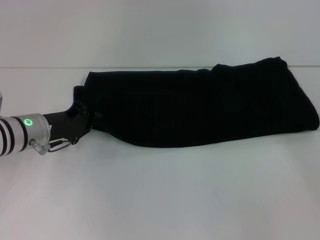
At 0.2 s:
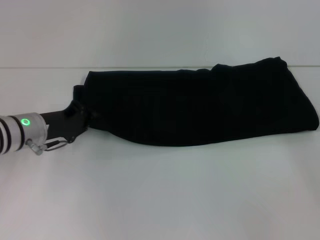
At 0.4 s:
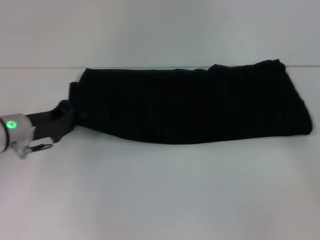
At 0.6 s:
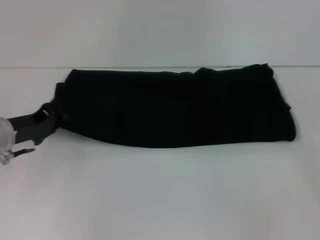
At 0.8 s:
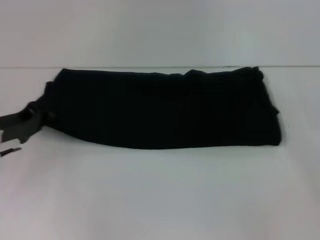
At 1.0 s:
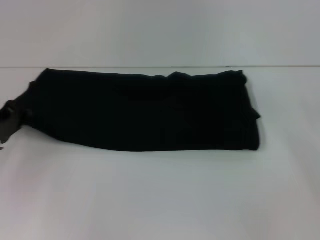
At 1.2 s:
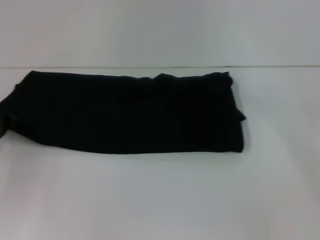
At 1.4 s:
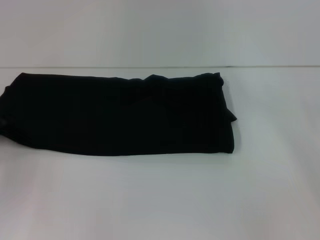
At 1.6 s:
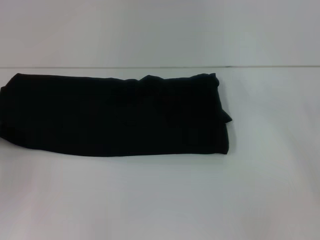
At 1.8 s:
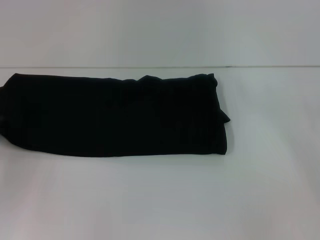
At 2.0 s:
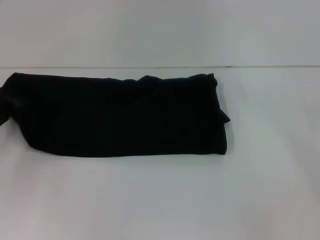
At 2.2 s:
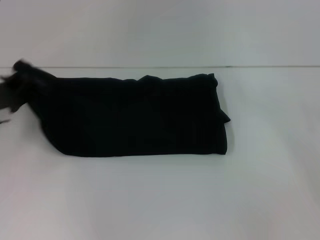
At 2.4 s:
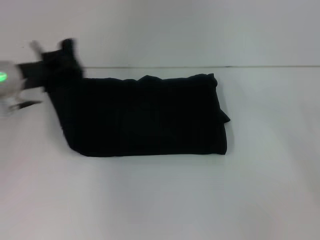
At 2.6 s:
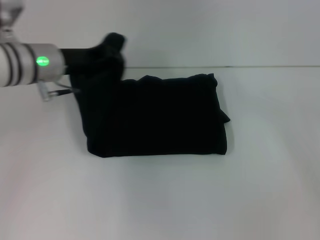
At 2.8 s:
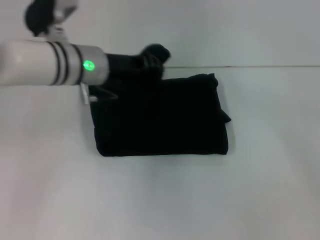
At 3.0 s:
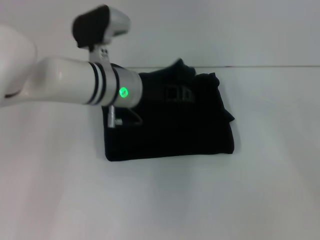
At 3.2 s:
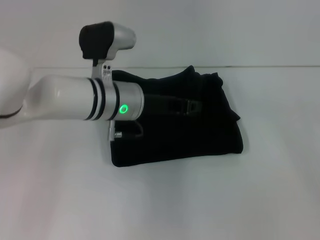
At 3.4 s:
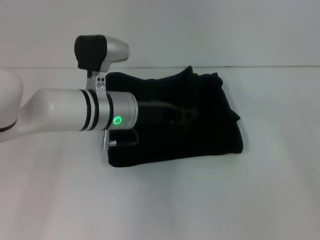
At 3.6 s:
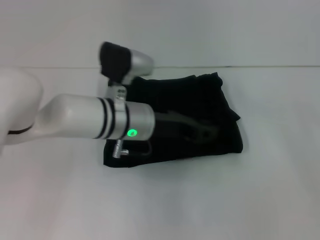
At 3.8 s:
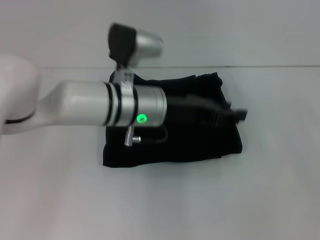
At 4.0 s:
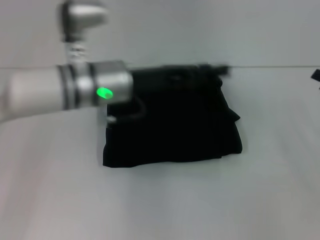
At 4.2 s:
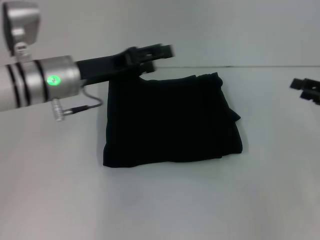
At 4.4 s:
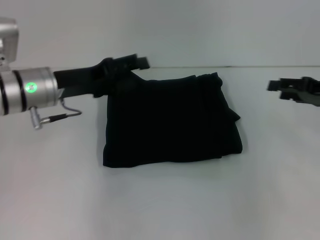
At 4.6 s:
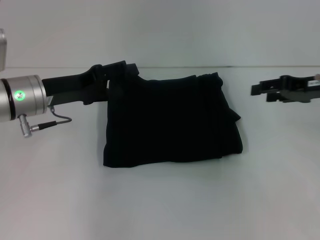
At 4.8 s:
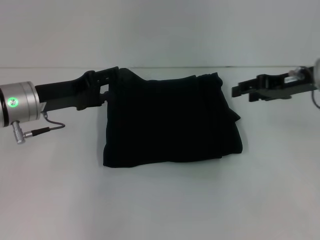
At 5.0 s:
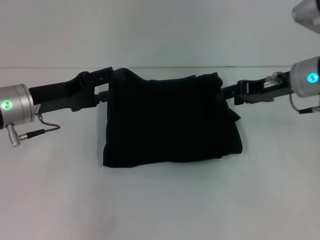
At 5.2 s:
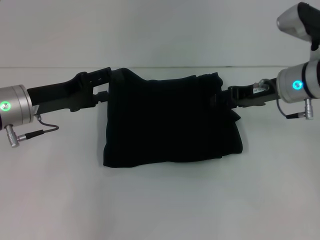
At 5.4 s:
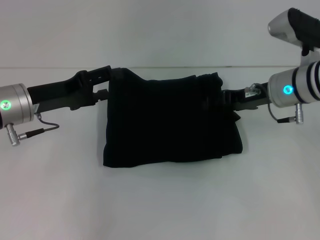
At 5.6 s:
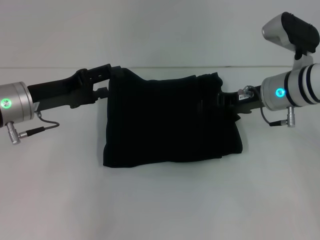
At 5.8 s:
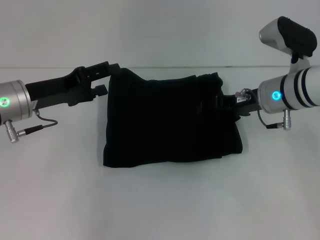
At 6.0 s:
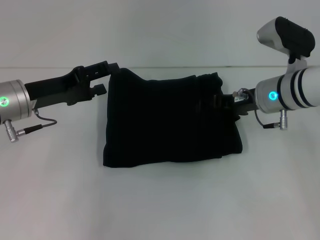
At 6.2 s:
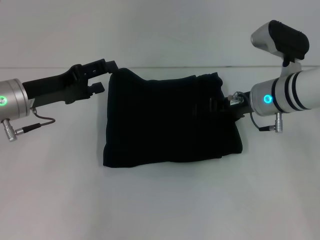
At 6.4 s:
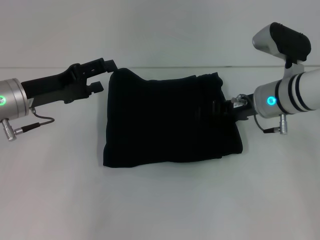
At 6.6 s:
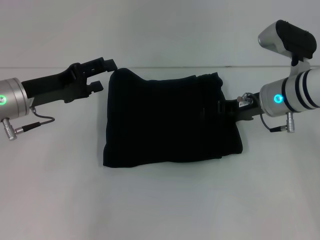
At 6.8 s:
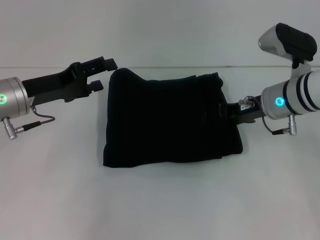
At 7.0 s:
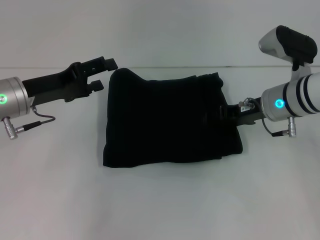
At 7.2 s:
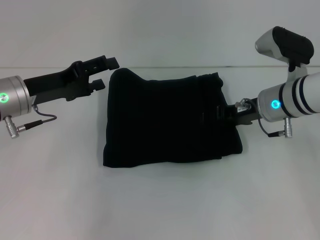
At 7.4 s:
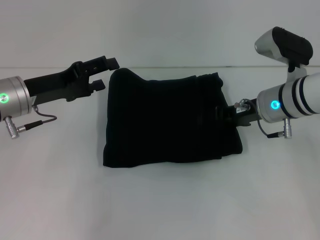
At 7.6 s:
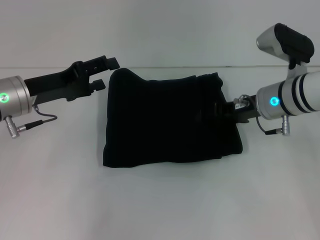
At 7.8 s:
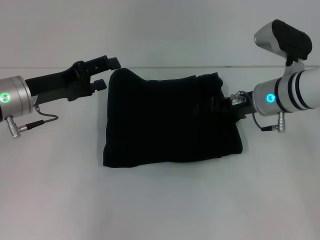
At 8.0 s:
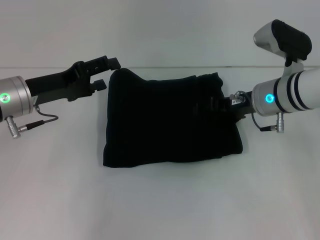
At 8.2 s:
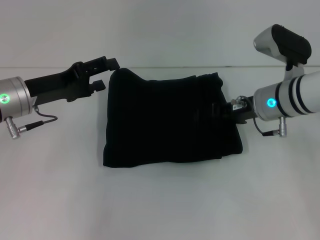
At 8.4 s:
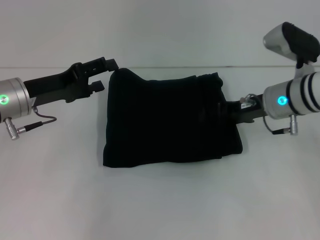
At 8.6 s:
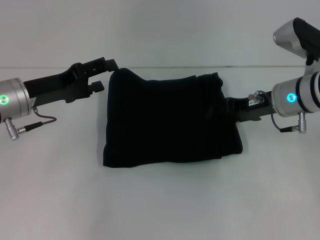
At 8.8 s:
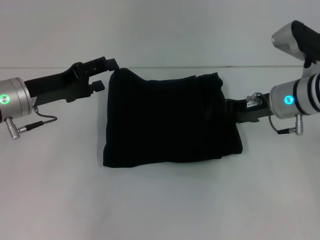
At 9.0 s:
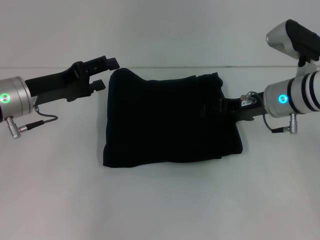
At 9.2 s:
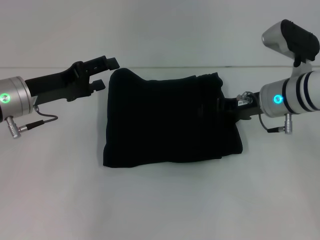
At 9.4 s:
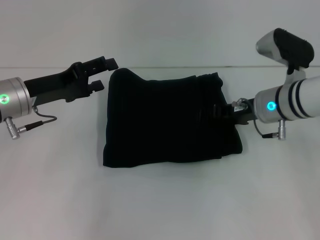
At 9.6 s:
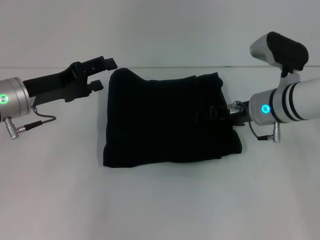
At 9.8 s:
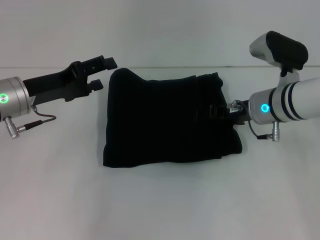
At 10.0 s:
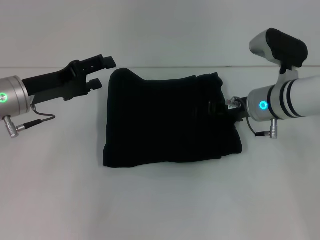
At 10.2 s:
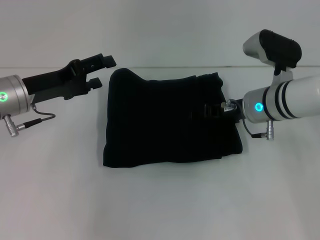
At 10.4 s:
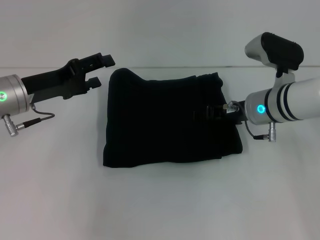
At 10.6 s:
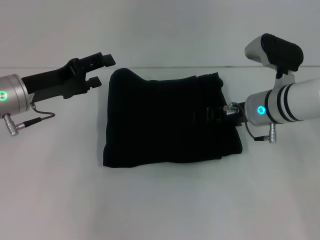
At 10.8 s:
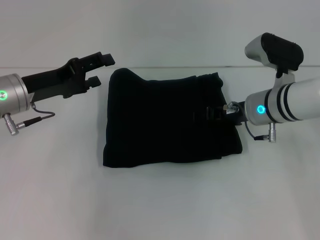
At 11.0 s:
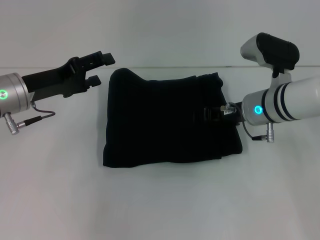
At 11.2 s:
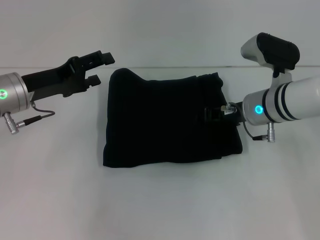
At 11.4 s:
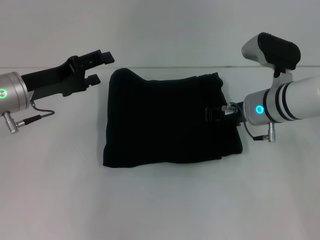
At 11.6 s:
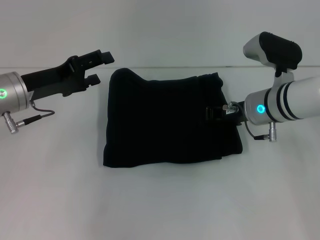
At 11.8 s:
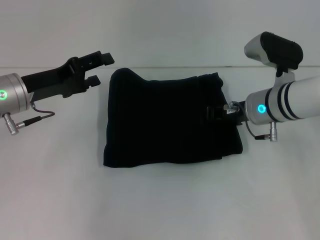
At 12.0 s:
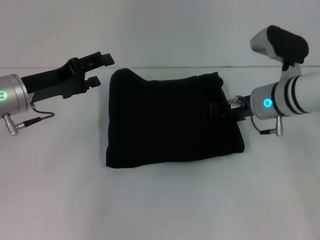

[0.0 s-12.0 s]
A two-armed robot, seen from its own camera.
Step, 0.0 to 4.0 s: Fold the clothes with your left hand.
0.0 to 1.6 s: The left gripper moves to the left and backward, approximately 15 cm.
1.6 to 3.0 s: The left gripper heads to the right, covering approximately 30 cm.
3.0 to 4.4 s: The right gripper is displaced forward and to the left by some 10 cm. The left gripper goes about 10 cm to the left, and opens up.
4.4 to 6.0 s: The right gripper moves to the left, some 15 cm.
6.0 to 7.6 s: Neither gripper changes place.
7.6 to 10.4 s: There are only small adjustments of the grippers.
10.4 to 12.0 s: The right gripper closes its fingers.

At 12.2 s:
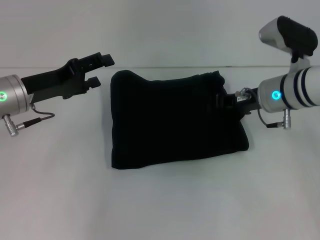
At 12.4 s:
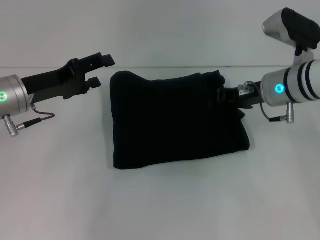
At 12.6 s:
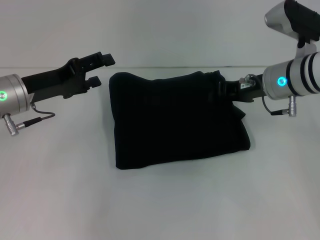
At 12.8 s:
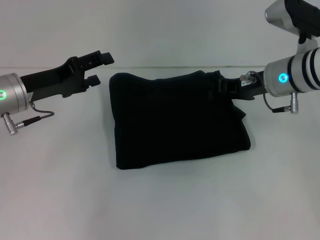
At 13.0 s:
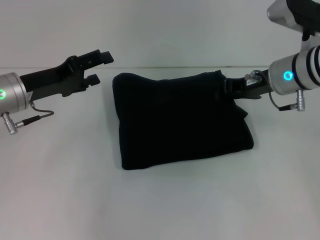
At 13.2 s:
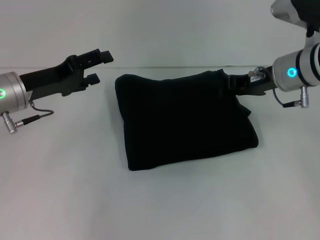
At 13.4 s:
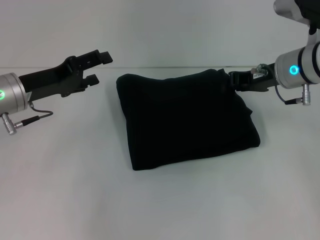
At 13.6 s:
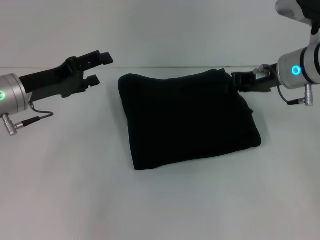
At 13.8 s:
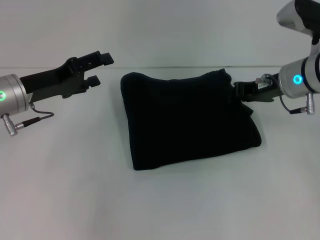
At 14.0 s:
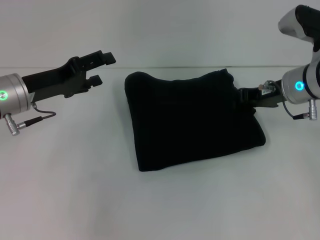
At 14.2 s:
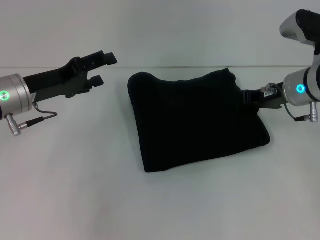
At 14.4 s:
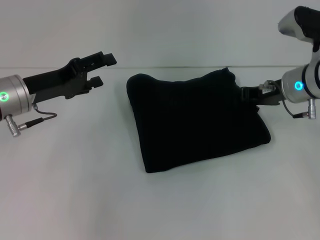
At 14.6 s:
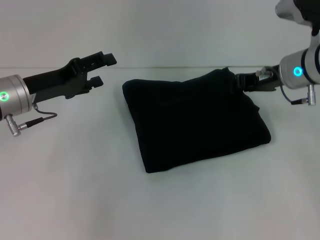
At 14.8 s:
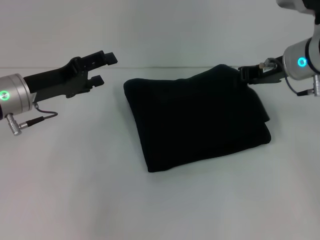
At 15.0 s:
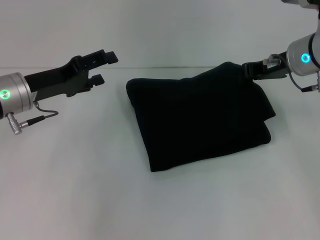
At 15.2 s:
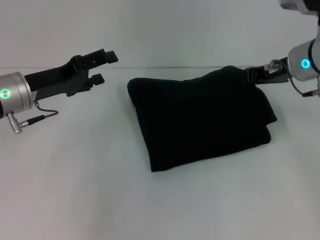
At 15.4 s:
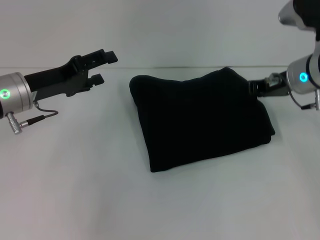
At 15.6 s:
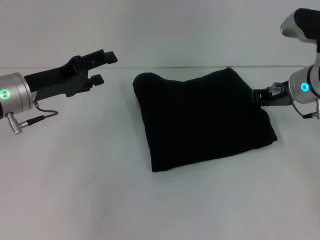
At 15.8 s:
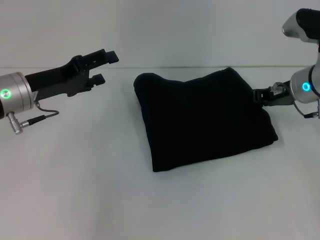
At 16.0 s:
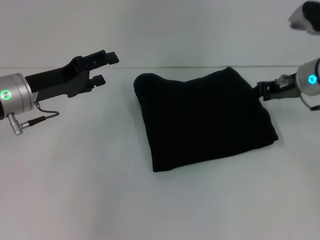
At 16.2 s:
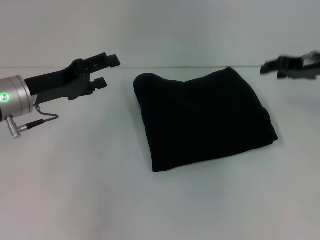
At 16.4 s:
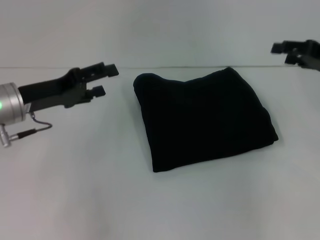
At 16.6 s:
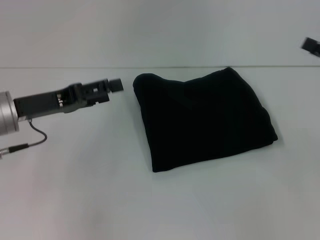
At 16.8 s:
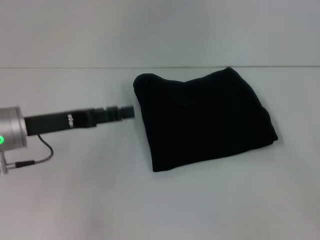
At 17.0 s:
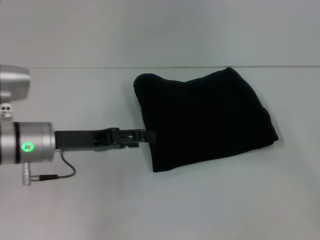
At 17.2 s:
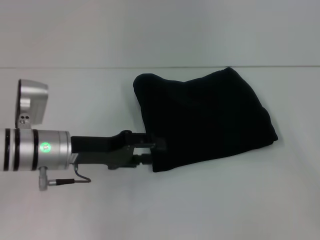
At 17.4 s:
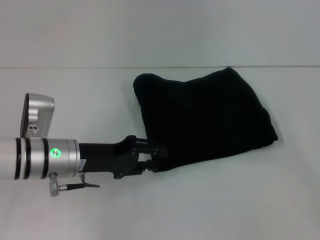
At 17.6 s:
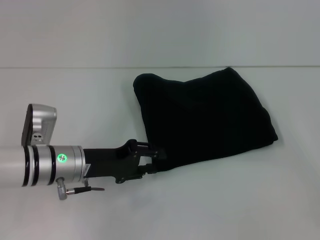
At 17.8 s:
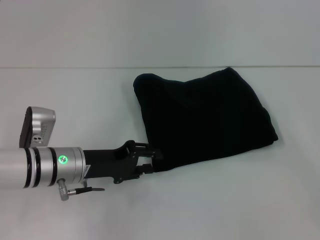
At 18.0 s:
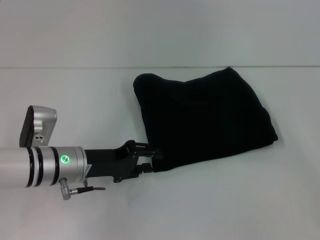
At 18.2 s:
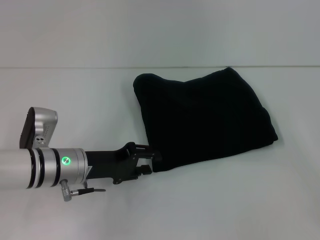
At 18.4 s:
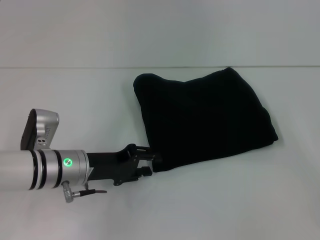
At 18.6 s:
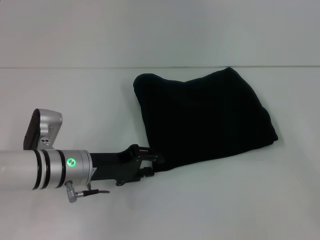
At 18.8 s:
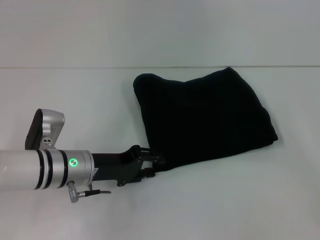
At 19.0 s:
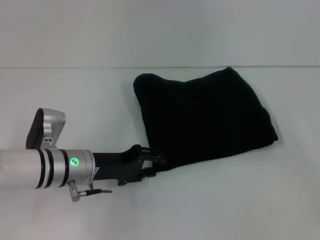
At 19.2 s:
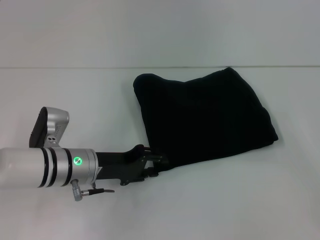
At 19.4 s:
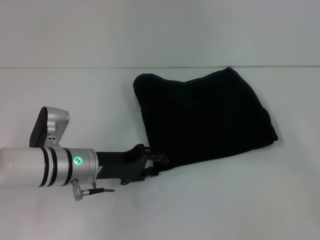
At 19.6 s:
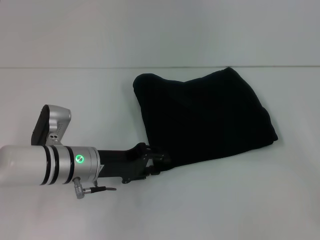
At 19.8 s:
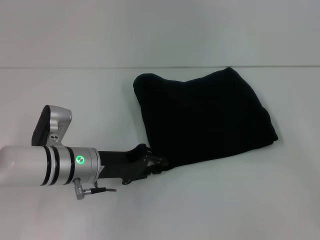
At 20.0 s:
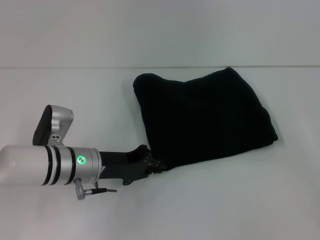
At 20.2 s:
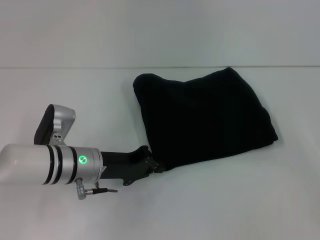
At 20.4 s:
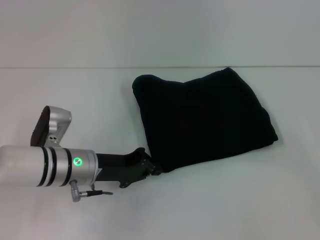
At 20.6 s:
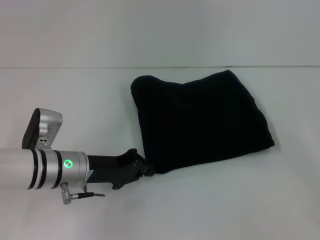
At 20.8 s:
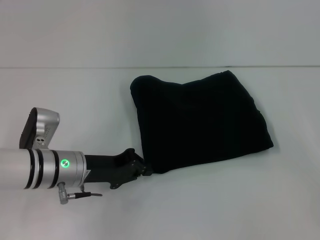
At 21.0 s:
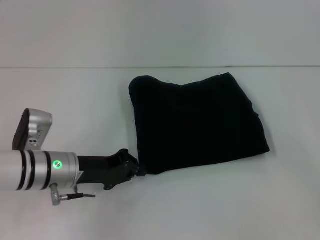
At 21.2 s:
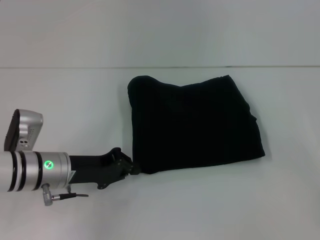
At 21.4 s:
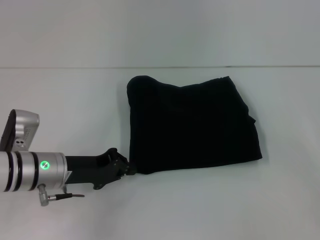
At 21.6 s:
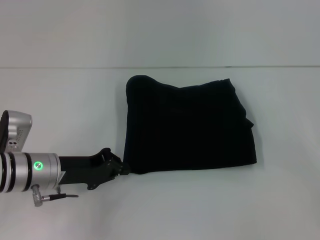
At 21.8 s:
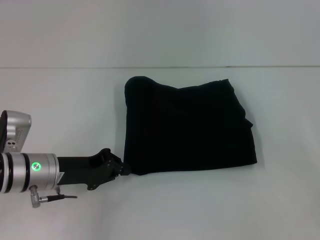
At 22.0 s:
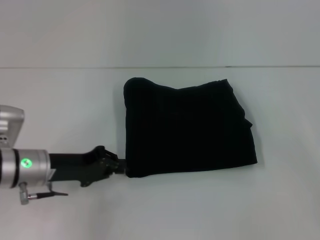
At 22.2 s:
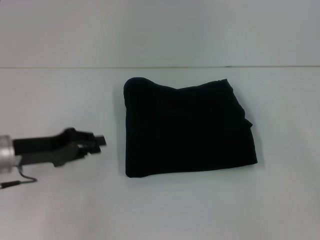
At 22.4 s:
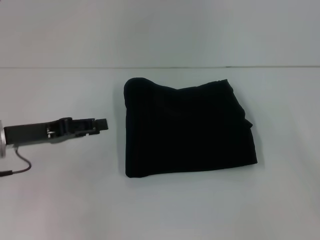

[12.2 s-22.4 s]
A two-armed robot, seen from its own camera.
12.2 to 13.6 s: The grippers make only small movements.
13.6 to 15.2 s: The grippers stay close to where they were, moving slightly.
15.2 to 16.6 s: The right gripper heads to the right and backward, covering roughly 15 cm, and opens up.
16.6 to 18.0 s: The left gripper moves downward and to the right, approximately 10 cm, and closes up, while the right gripper travels backward by approximately 5 cm.
18.0 to 19.4 s: The grippers move only a little.
19.4 to 21.0 s: The left gripper closes up.
21.0 to 22.4 s: The left gripper heads to the left and upward, covering roughly 10 cm, and opens.
